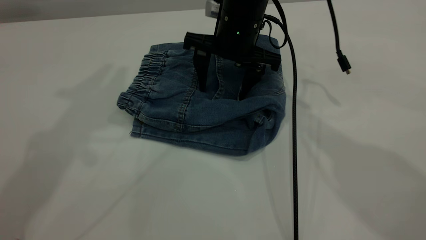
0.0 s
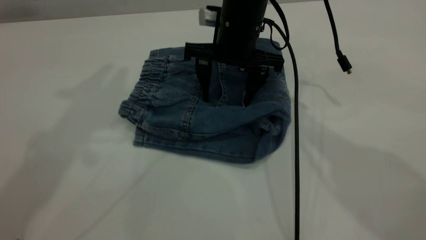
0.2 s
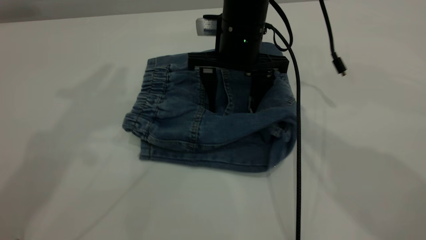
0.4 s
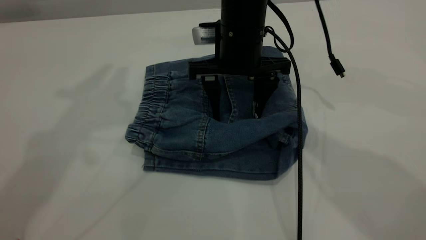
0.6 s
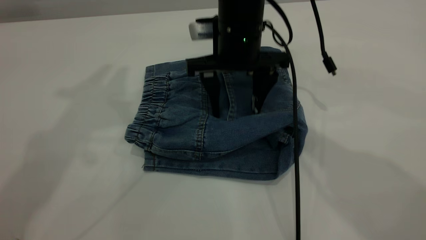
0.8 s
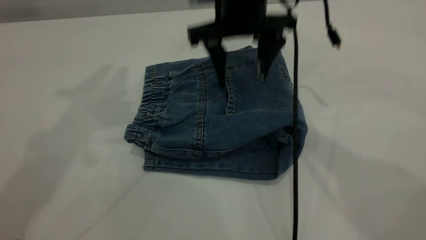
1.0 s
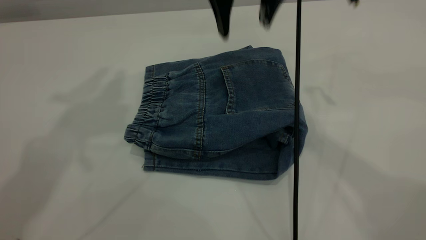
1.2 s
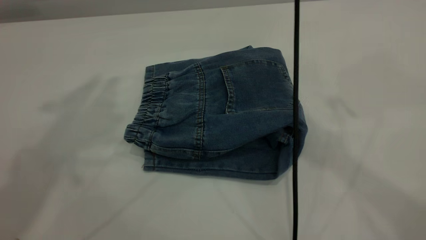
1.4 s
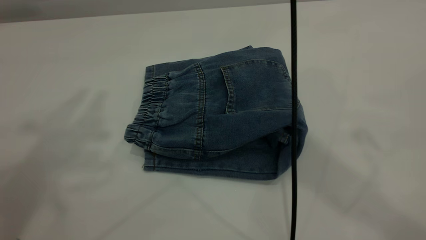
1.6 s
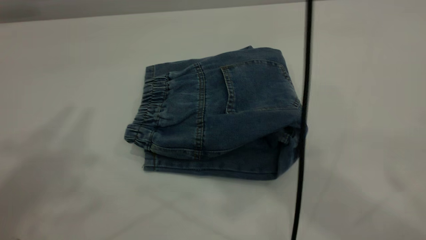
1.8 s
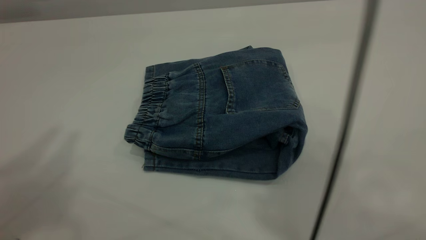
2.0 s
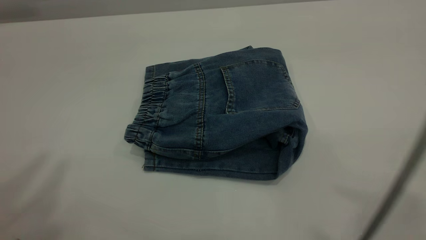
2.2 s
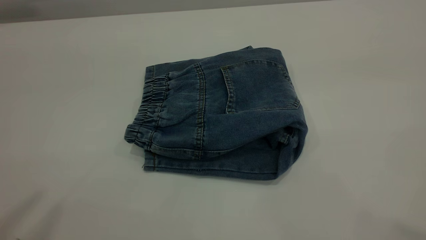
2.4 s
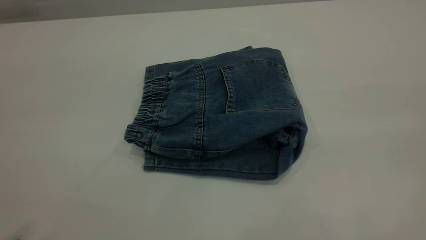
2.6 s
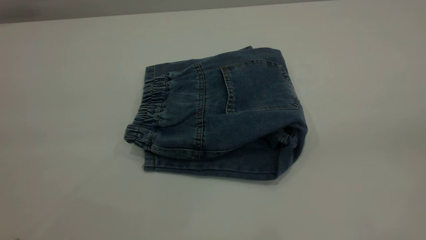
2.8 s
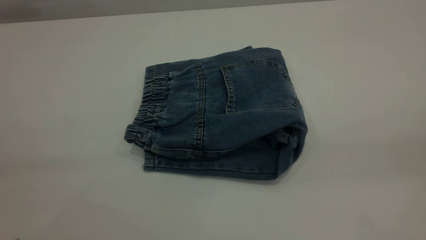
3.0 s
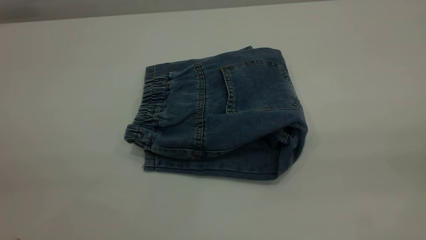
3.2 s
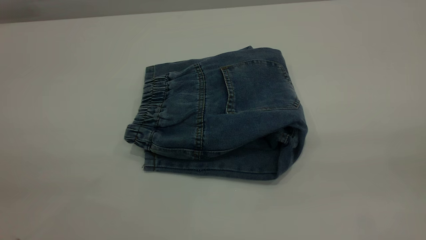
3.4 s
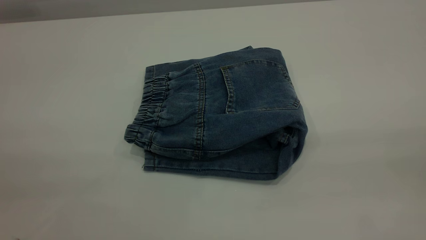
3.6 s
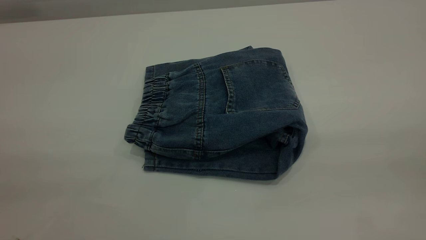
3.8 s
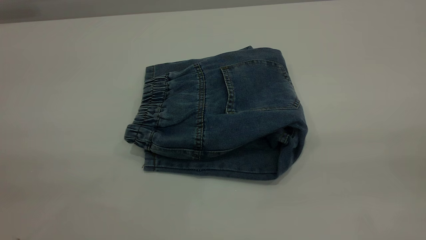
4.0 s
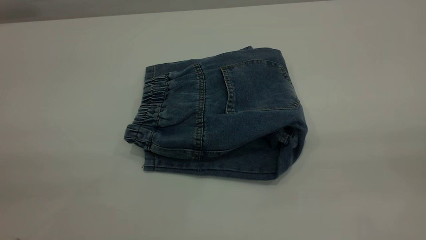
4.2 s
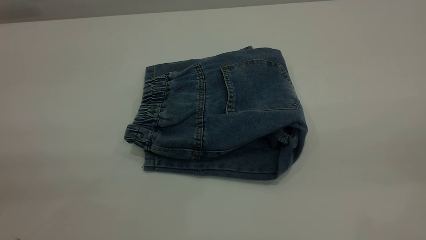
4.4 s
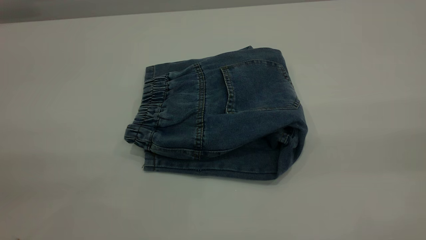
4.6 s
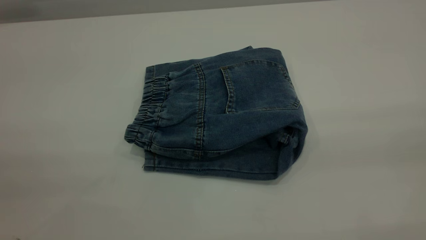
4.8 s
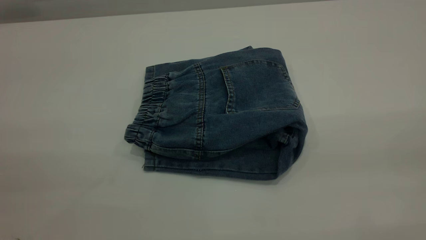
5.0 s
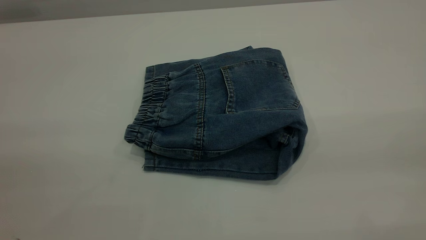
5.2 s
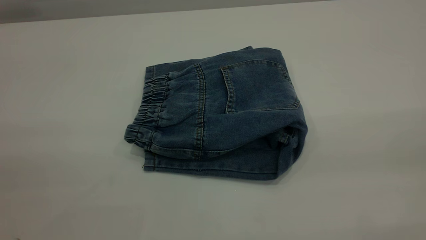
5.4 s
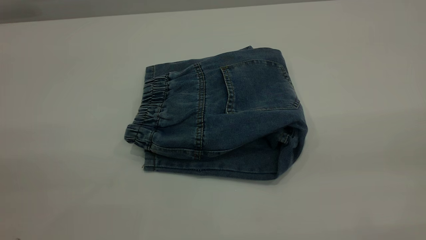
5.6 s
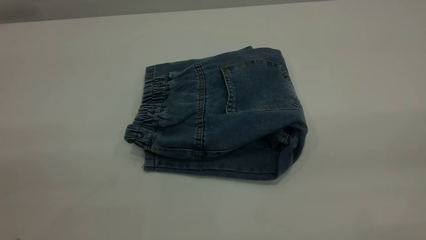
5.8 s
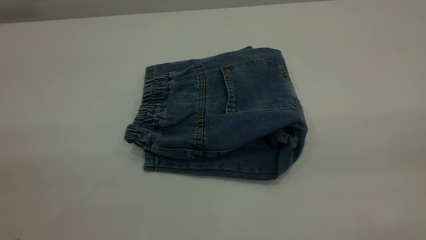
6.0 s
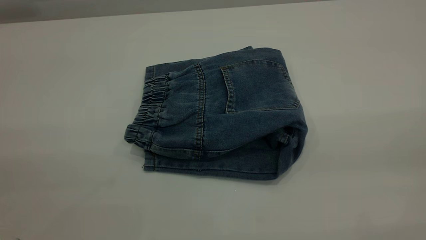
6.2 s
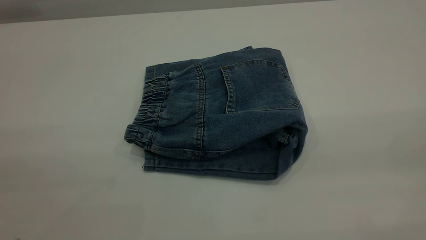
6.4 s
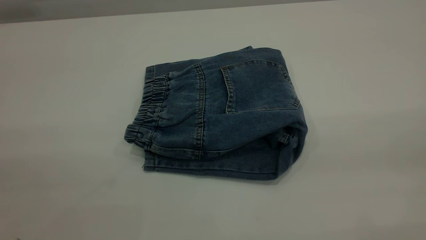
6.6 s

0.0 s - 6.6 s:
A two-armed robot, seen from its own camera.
0.0 s - 1.6 s: The left gripper heads backward and upward, covering roughly 10 cm. Meanwhile the right gripper goes approximately 30 cm upward and backward.
1.6 s - 3.2 s: The right gripper heads backward and to the right, covering roughly 35 cm.
5.0 s - 6.6 s: Both grippers stay about where they are.
